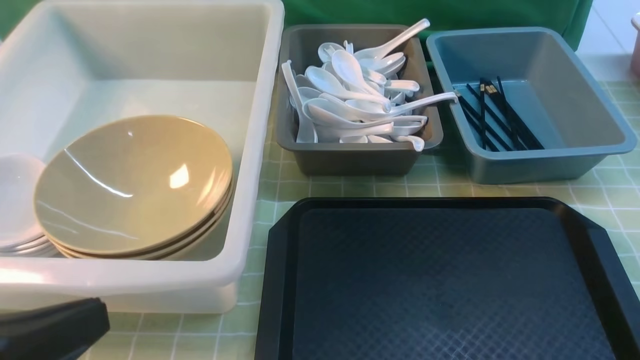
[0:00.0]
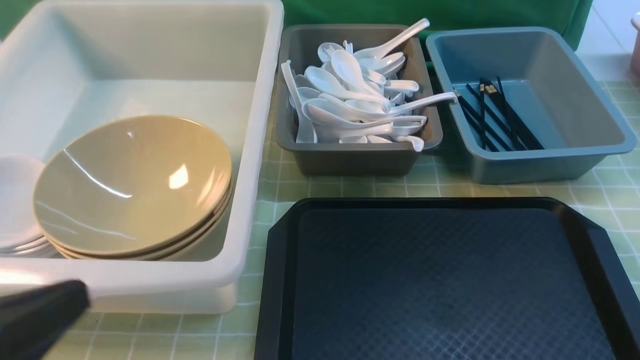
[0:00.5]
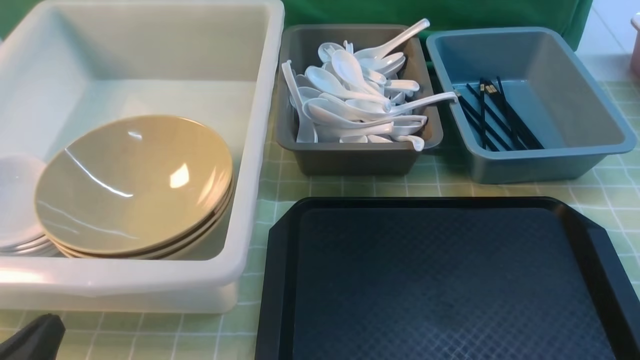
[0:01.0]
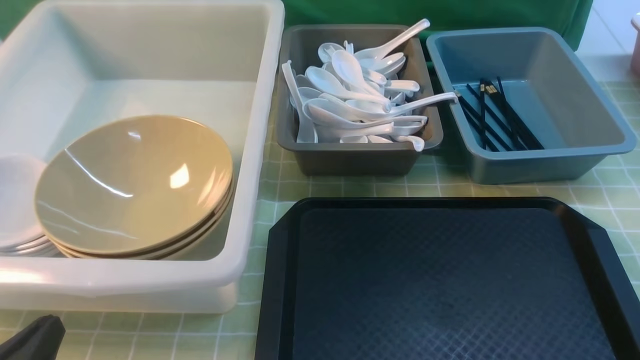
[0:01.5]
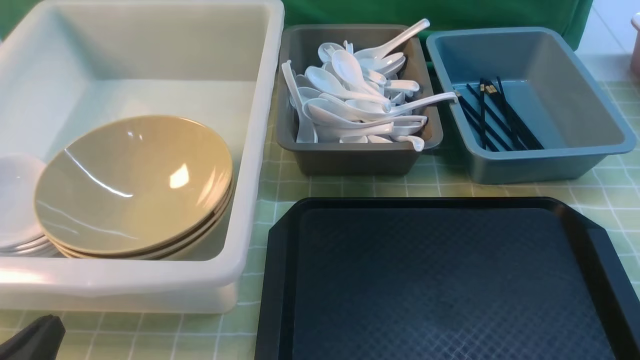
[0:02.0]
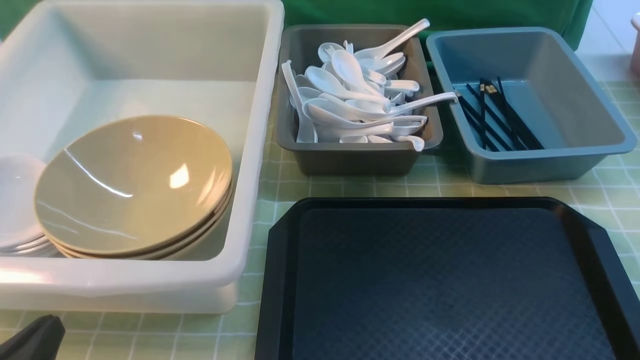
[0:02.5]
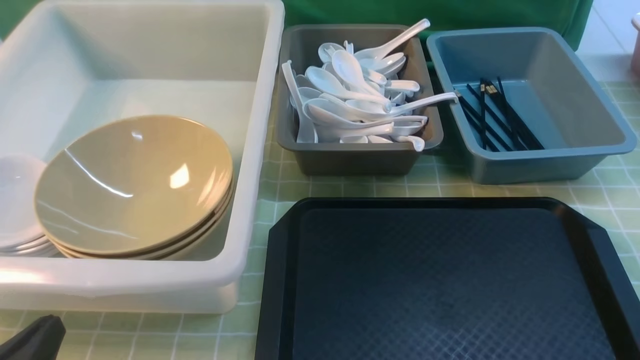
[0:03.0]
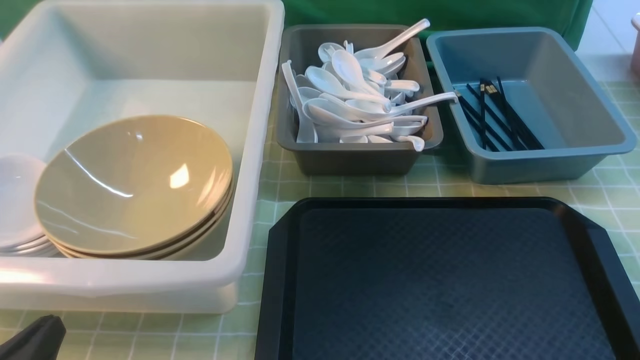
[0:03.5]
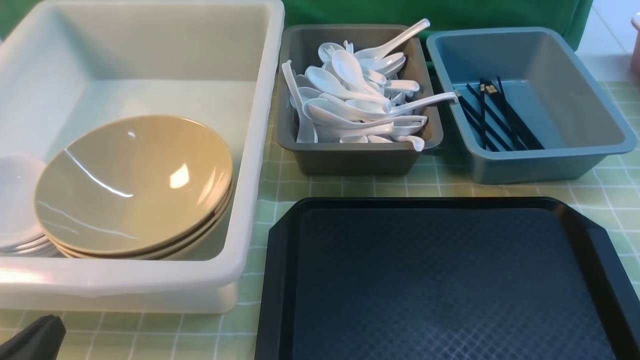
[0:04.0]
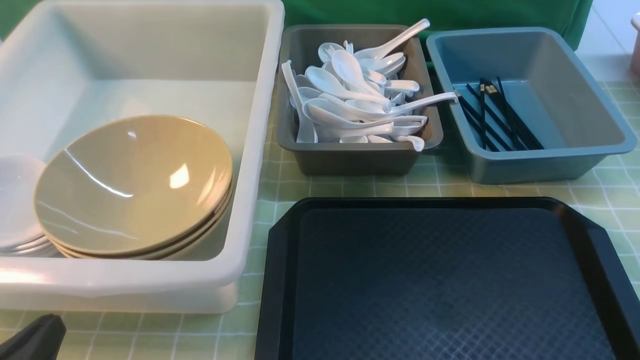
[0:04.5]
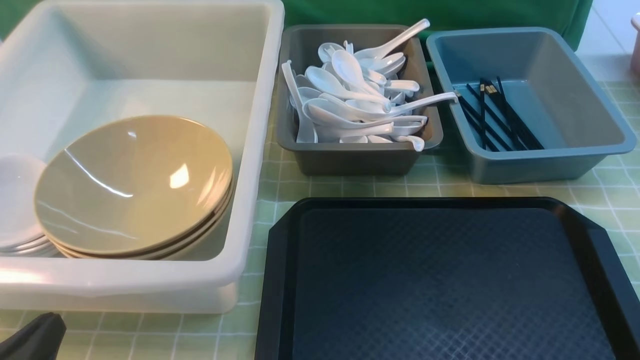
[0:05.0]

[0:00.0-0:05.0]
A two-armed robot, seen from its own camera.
Task of the whole recording: on green table put chopsticks spoon bowls plates into blue grey white boxes.
0:00.0 to 0:02.5: The left gripper shifts roughly 15 cm downward.
